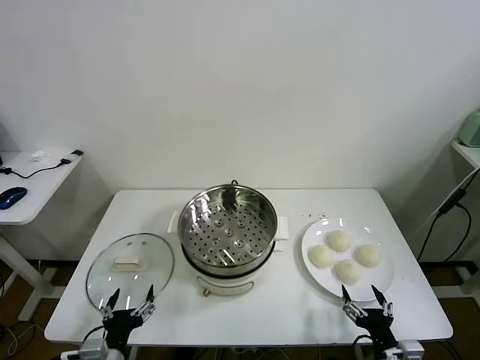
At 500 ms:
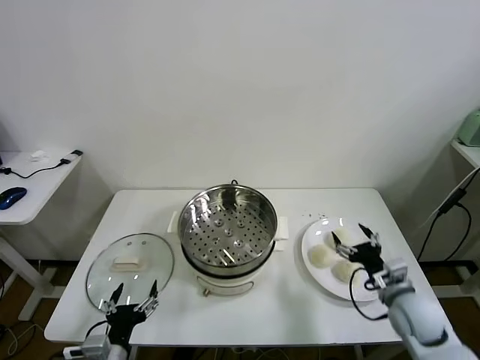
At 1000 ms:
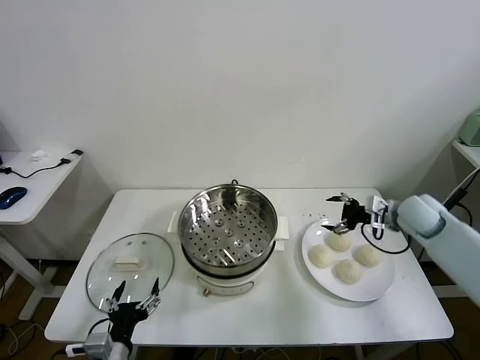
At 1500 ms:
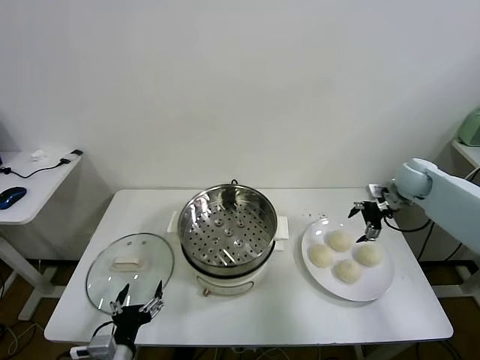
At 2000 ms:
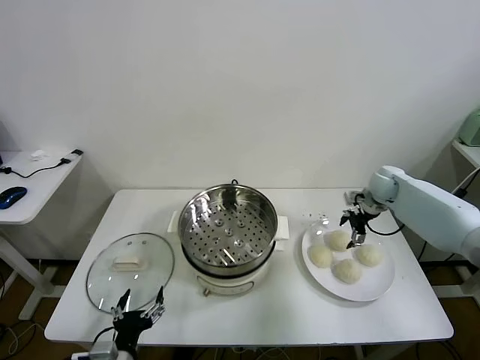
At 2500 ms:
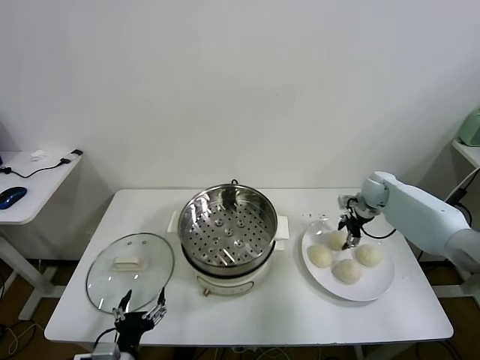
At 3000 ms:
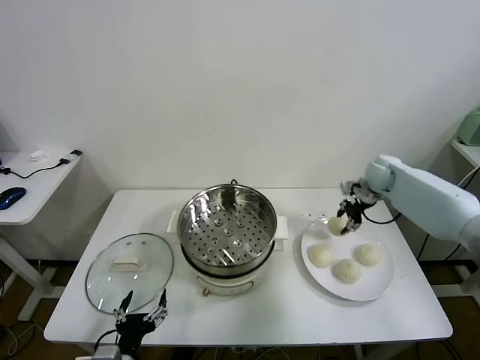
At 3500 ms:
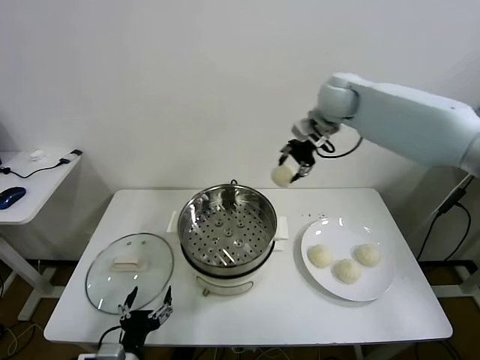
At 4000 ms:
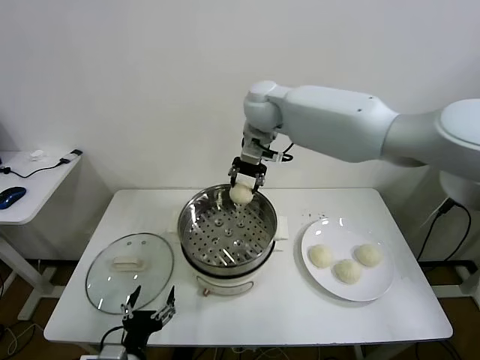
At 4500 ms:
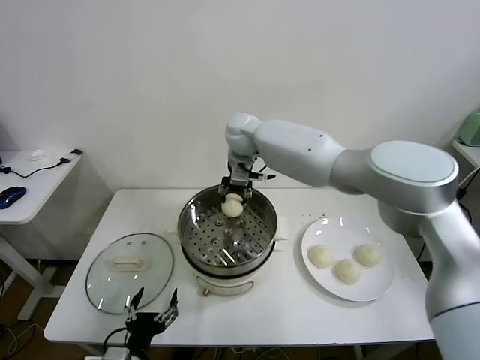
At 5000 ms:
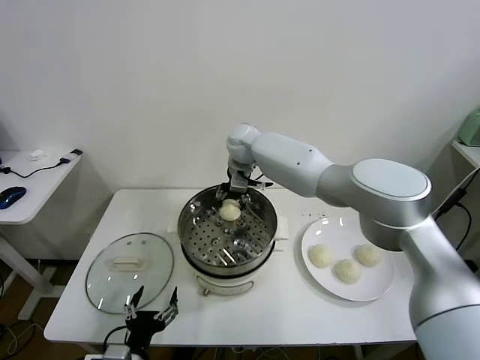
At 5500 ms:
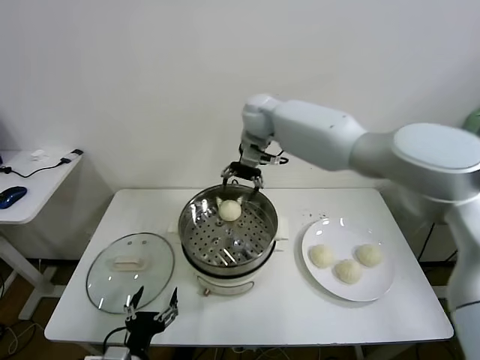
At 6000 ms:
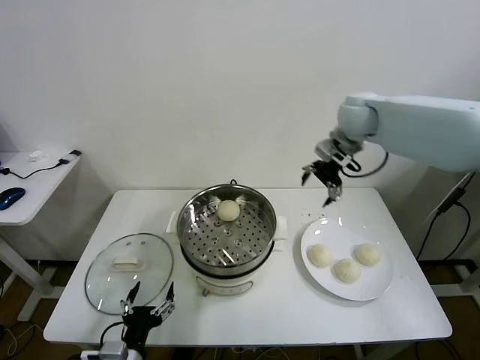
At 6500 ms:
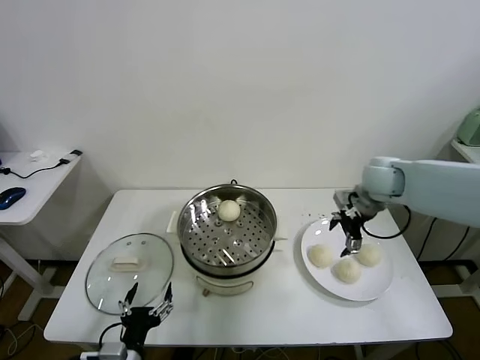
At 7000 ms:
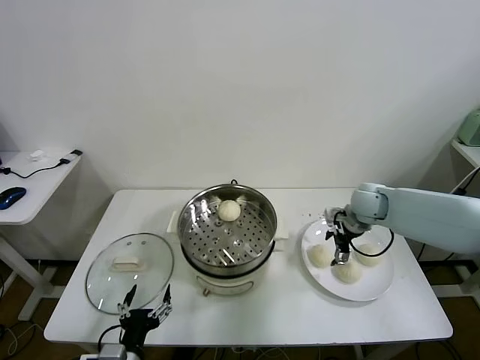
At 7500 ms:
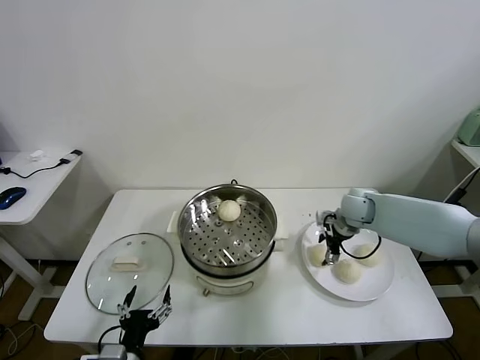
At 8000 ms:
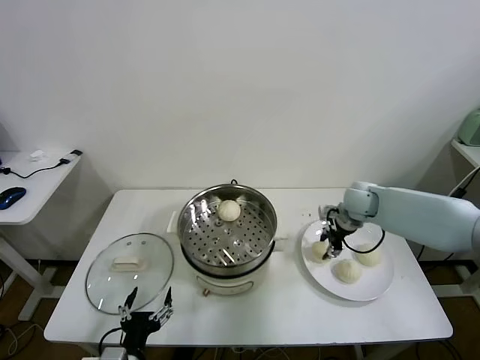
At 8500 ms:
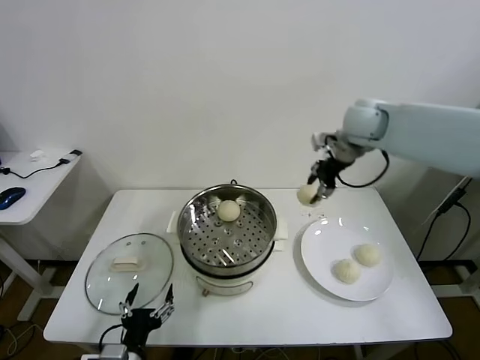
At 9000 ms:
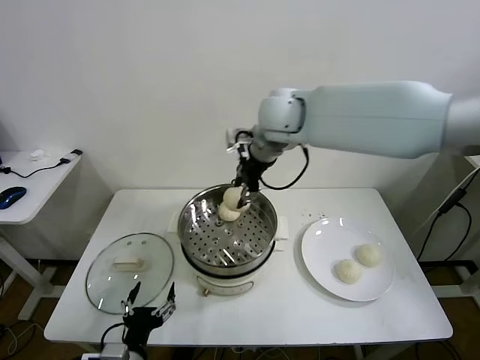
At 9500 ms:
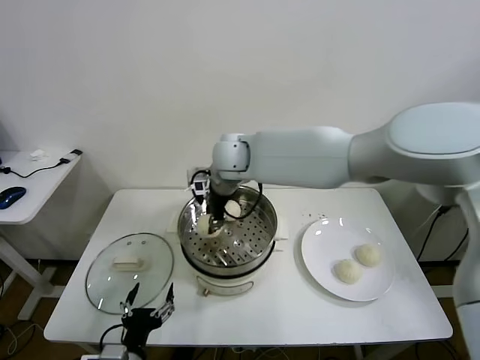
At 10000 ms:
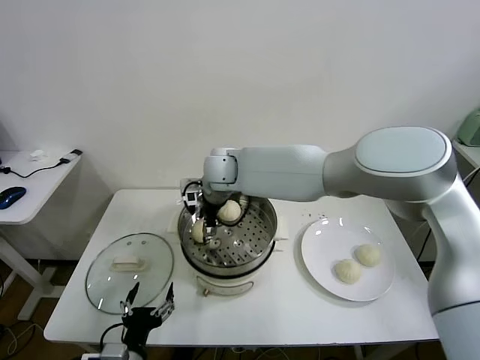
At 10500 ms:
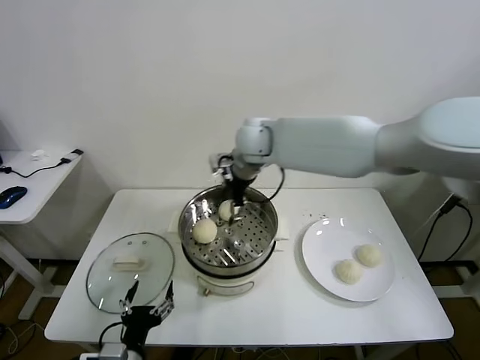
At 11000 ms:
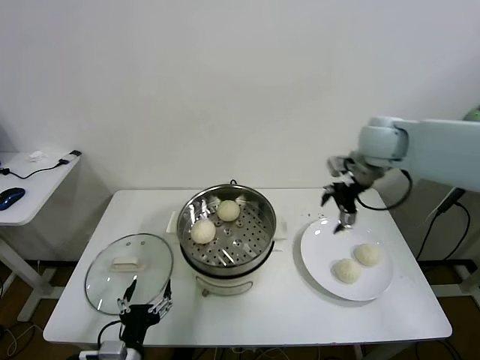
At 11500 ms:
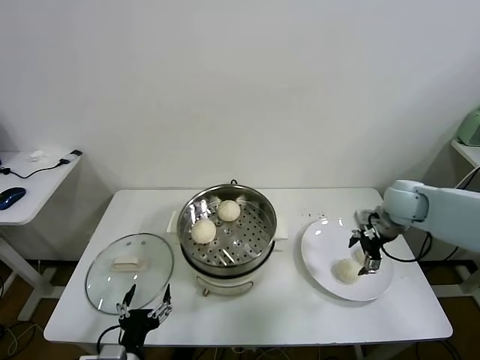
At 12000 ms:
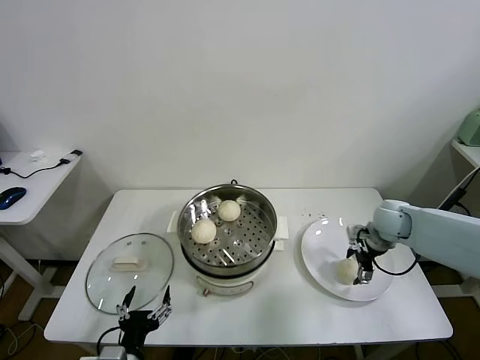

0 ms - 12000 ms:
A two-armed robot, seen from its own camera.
Task of the whole recording: take steamed baozi put them in steamer.
Step, 0 ms - 2500 ms: Grasp the baozi in the plate with right gripper.
Step, 3000 ms - 5000 ms: Place the baozi on the steamer with right gripper.
Step, 5500 ms - 7500 ms: Grasp the baozi in the plate with right gripper.
Step, 8000 ms - 10000 ms: Place the baozi on the steamer with right gripper.
2000 ms - 4000 ms: The right gripper heads to the left and upward, covering about 40 cm, and closes its fingers.
4000 ms - 6000 ms: The right gripper goes roughly 25 cm to the right, and opens.
6000 ms - 8000 ms: The right gripper is displaced downward by approximately 15 cm, and closes up.
8000 ms - 10000 ms: The right gripper shifts some 35 cm to the left, and opens its fingers.
10000 ms - 12000 ms: The right gripper heads to the right, covering some 40 cm.

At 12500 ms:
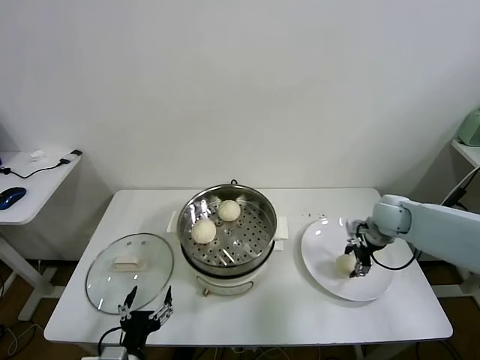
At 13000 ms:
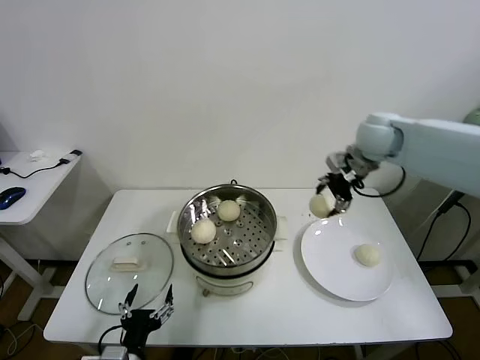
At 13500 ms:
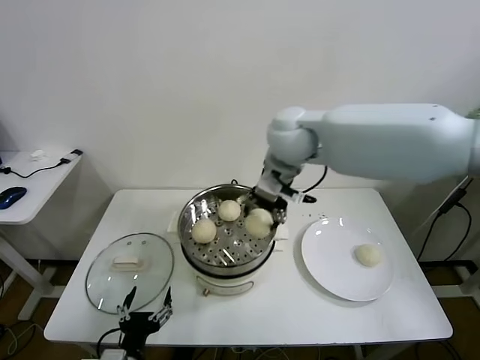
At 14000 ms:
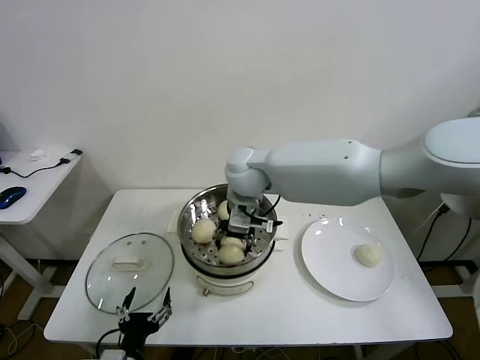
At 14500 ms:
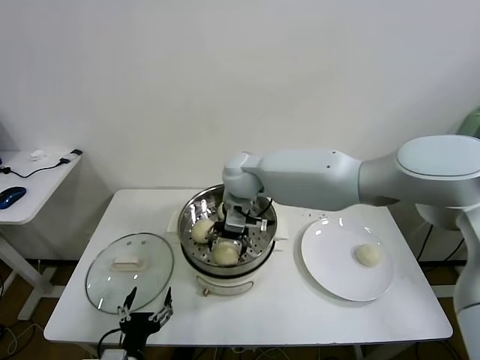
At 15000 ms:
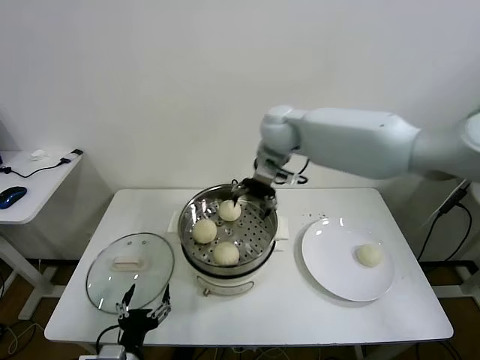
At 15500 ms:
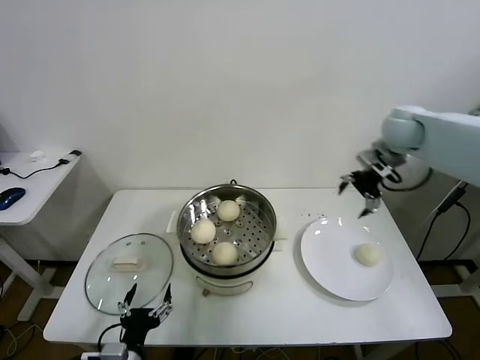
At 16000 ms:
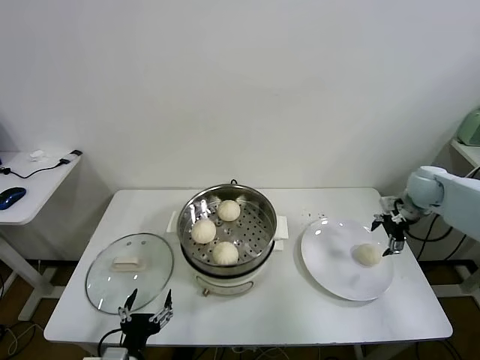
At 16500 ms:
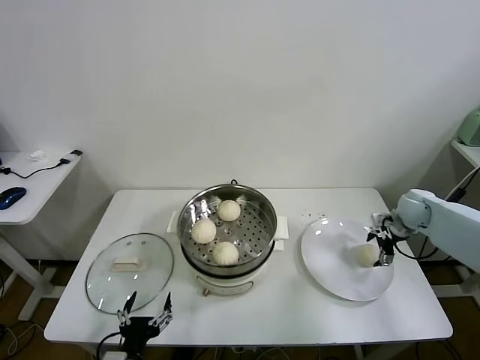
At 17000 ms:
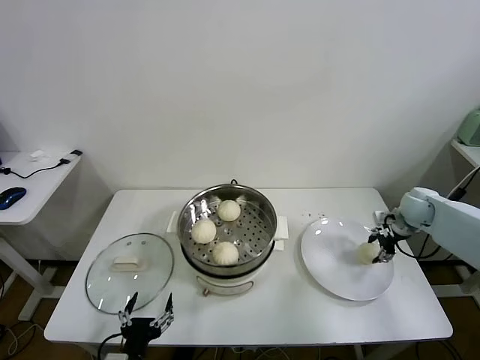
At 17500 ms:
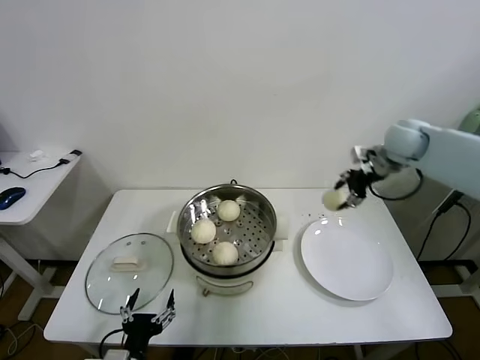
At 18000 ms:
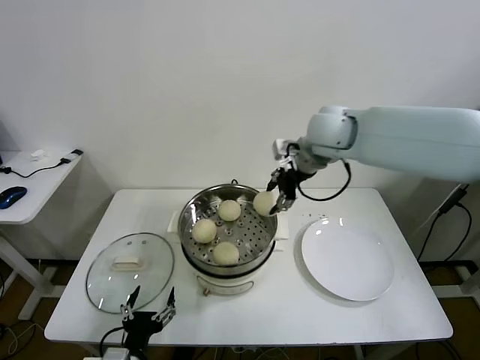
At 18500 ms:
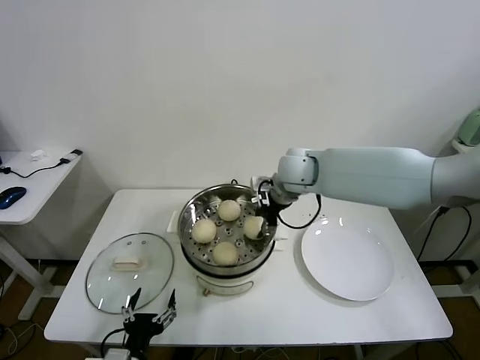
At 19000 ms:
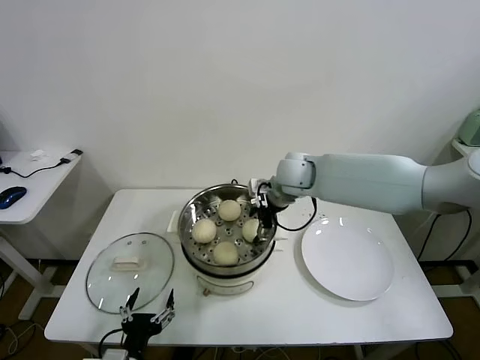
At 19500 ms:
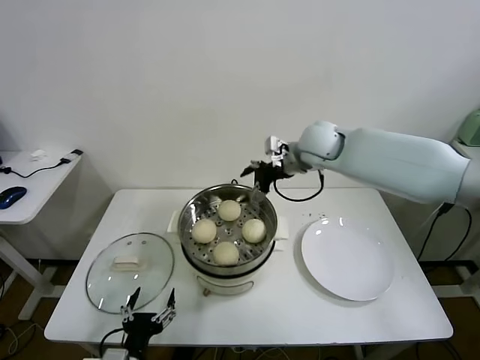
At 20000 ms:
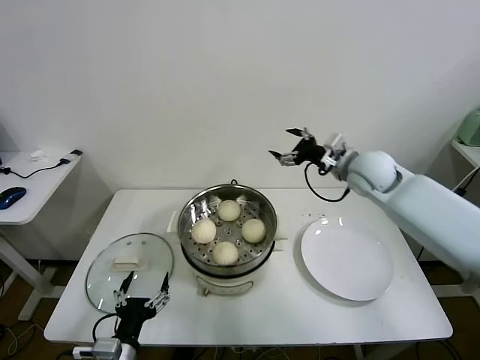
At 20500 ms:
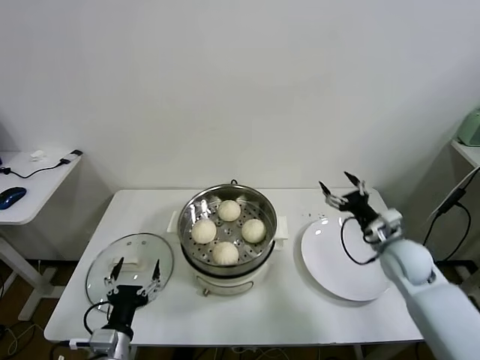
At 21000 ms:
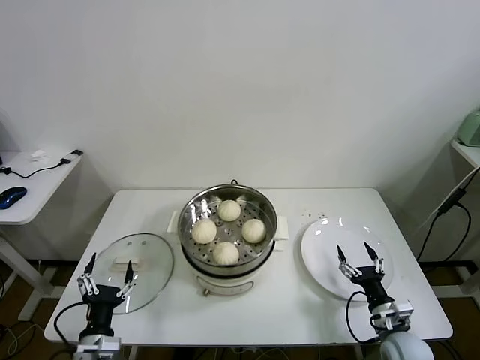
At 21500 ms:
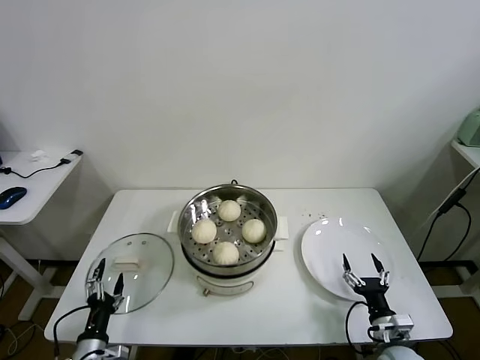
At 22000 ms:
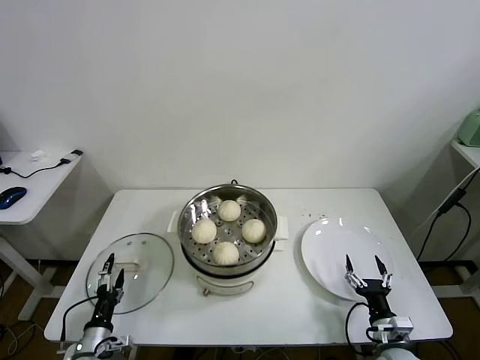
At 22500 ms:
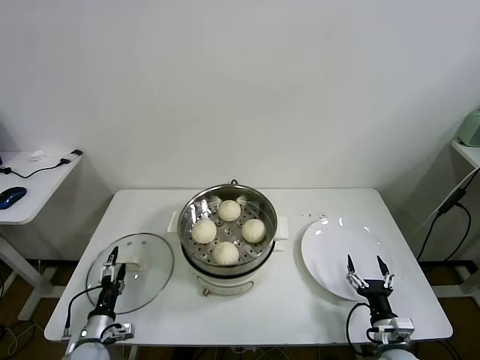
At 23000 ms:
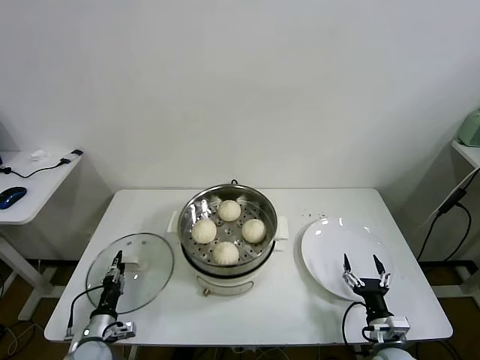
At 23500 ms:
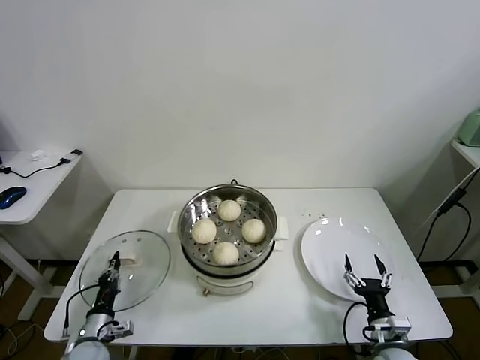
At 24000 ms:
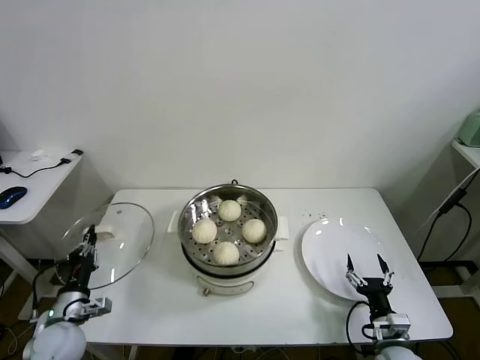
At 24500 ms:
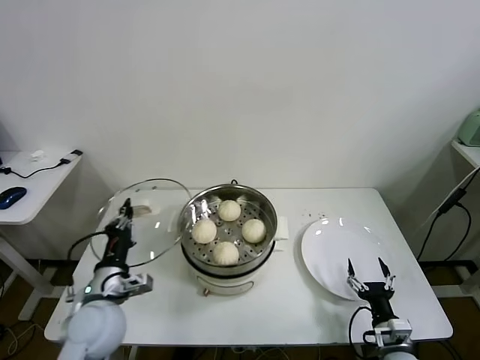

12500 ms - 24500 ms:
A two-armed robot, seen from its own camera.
Task of the whole recording: take steamed baozi put them in steamer.
Step, 12500 ms - 14500 ms: Place the baozi on the steamer with right gripper.
Step, 15000 ms - 16500 ms: Grasp the baozi in the plate with right gripper.
Step, 17500 ms - 18500 ms: Place the baozi on the steamer with right gripper.
Step, 19000 ms - 23000 ms: Grasp the pot lid with left gripper.
12500 ms - 14500 ms: The right gripper goes about 35 cm to the left, and opens up.
14500 ms - 16500 ms: The right gripper moves to the right, roughly 40 cm.
16500 ms - 18500 ms: The right gripper is displaced to the left and upward by some 35 cm, and closes its fingers.
18500 ms - 20500 ms: The right gripper shifts about 30 cm to the right, downward and backward, and opens up.
20500 ms - 22500 ms: The right gripper shifts some 25 cm backward and downward. The left gripper goes roughly 20 cm downward, to the left and forward.
22500 ms - 24500 ms: The left gripper travels upward by some 20 cm, and closes its fingers.

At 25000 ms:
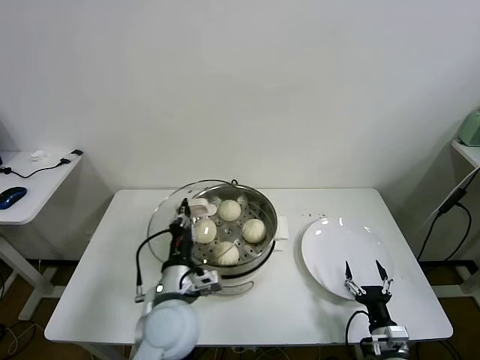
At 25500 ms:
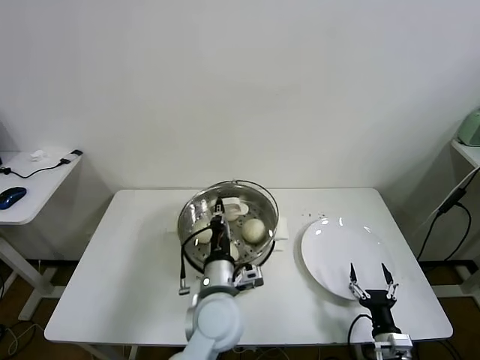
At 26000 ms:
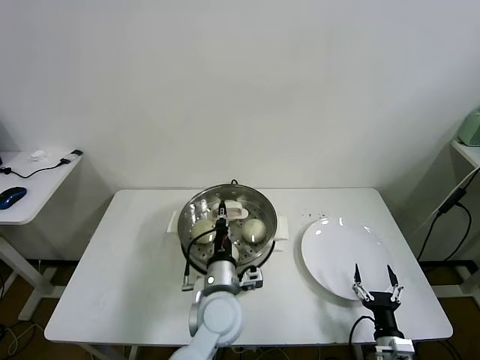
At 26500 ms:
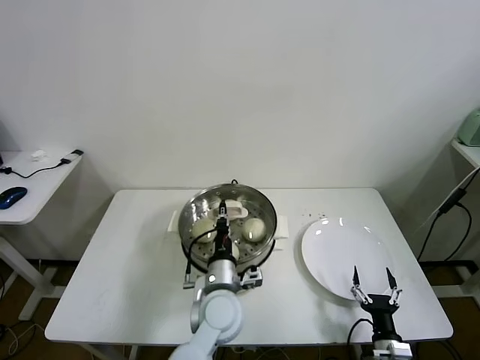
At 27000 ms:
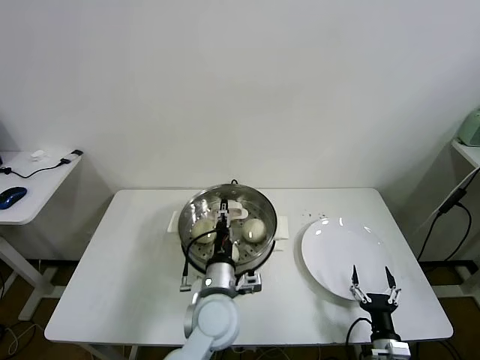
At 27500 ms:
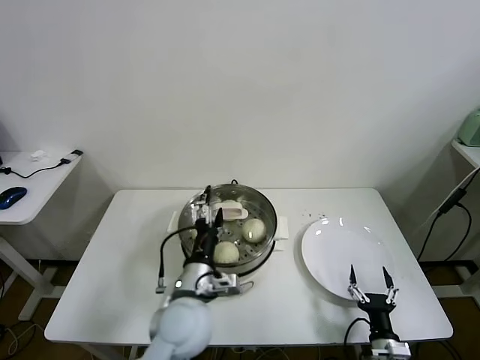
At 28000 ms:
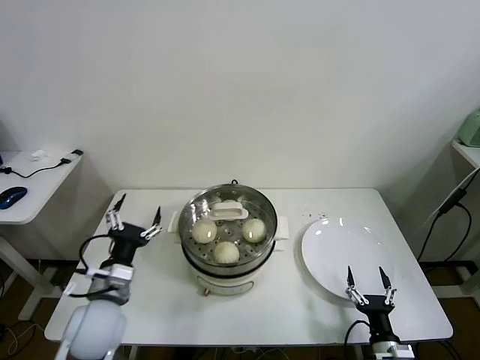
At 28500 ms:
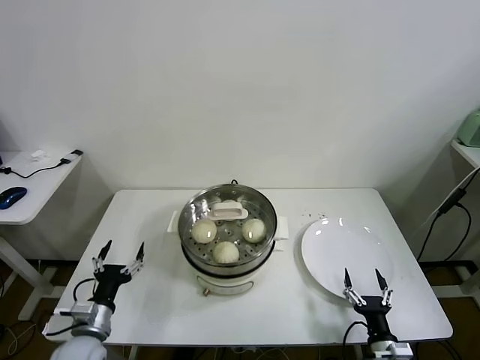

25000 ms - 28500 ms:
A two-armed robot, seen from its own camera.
Task of the whole recording: take steamed baozi put them in steamer.
25000 ms - 27000 ms: The left gripper is displaced to the right by approximately 10 cm.
27000 ms - 28500 ms: The left gripper moves to the left, approximately 30 cm, and opens up.
